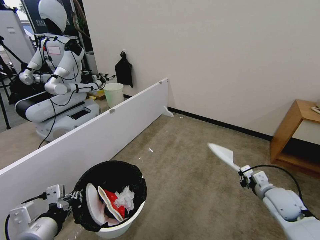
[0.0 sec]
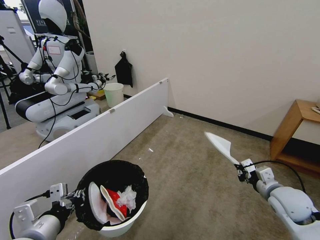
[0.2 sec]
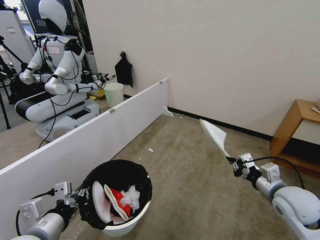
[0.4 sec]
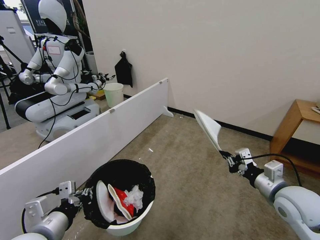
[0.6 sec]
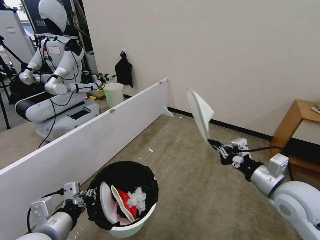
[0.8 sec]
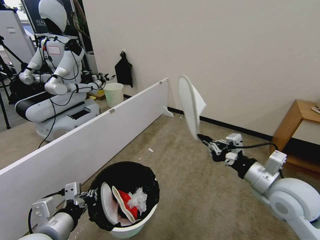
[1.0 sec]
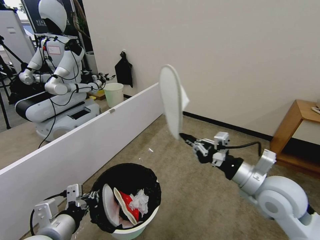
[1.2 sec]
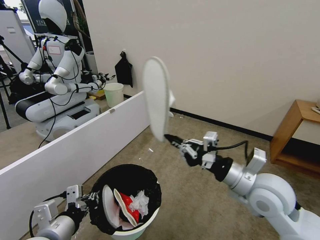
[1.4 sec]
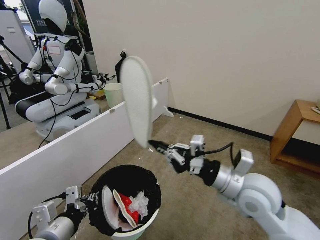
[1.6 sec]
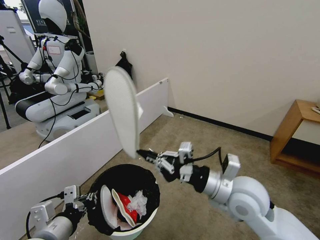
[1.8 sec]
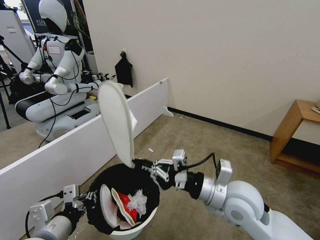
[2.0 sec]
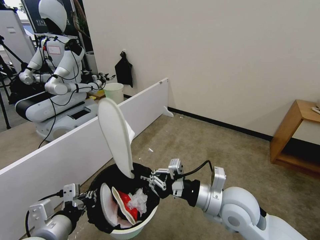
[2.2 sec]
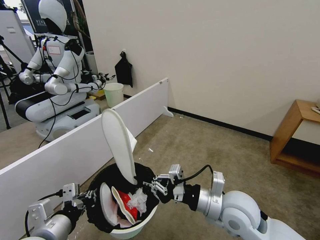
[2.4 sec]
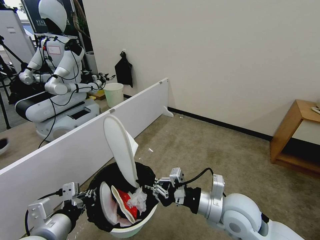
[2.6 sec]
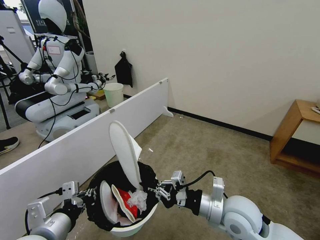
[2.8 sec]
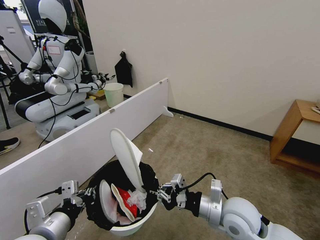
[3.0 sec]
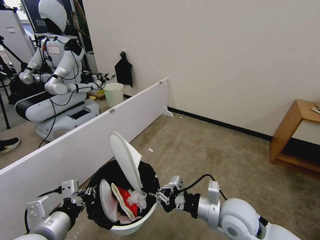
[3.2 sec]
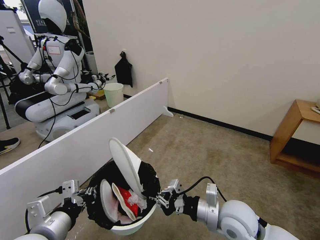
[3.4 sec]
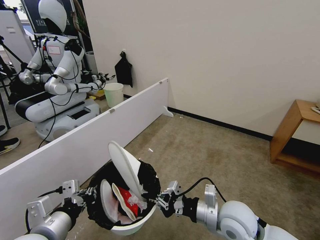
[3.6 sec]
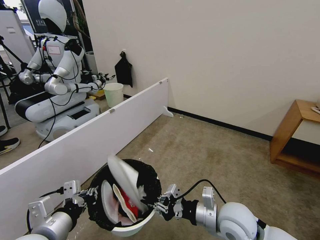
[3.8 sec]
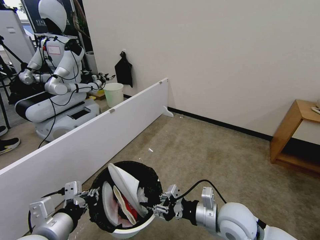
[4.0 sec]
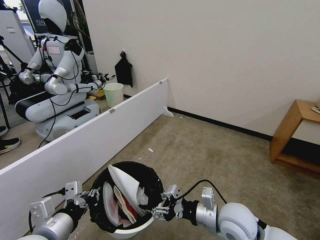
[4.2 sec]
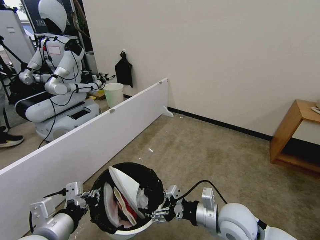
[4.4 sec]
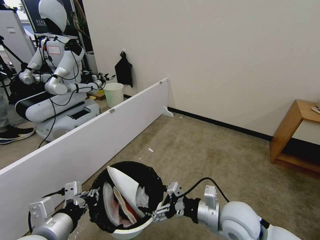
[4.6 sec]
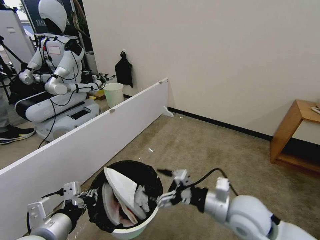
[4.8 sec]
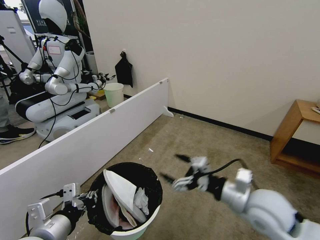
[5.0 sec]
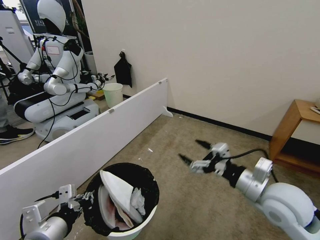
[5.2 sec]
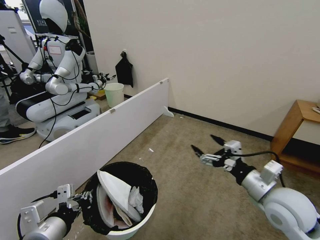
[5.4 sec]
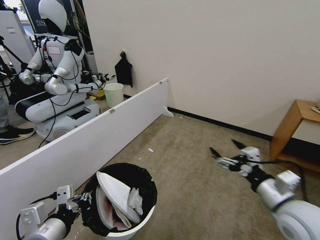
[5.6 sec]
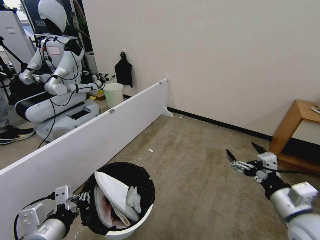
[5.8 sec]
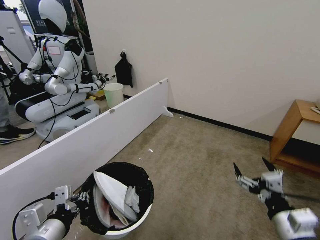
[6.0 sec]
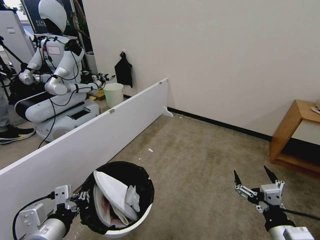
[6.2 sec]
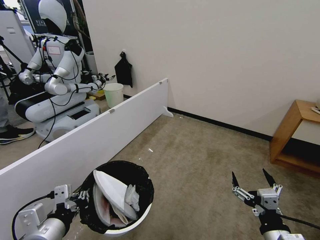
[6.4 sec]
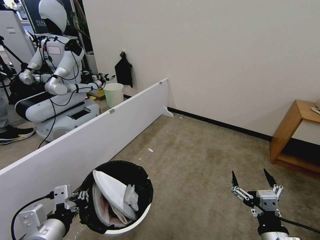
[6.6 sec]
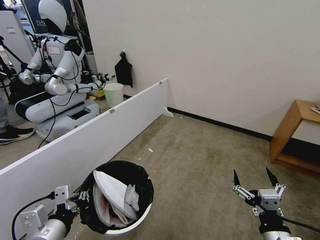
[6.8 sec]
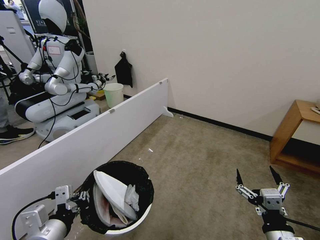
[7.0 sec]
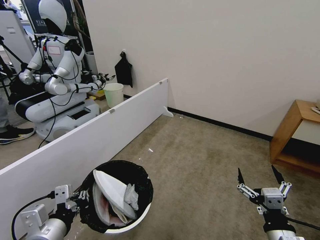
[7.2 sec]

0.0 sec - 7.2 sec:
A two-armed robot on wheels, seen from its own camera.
Task of the whole recording: Pick up the trash bin, then pick up the garbage from the floor and place it into the trash bin.
0.0 sec - 1.4 sec: The right gripper is displaced upward and to the left by about 20 cm.
1.4 sec - 2.8 sec: The right gripper is displaced downward by some 10 cm.
2.8 sec - 4.4 sec: The right gripper opens its fingers.
4.4 sec - 5.8 sec: The right gripper moves to the right, upward and backward, approximately 15 cm.
5.8 sec - 7.2 sec: The right gripper travels downward and backward by about 10 cm.
